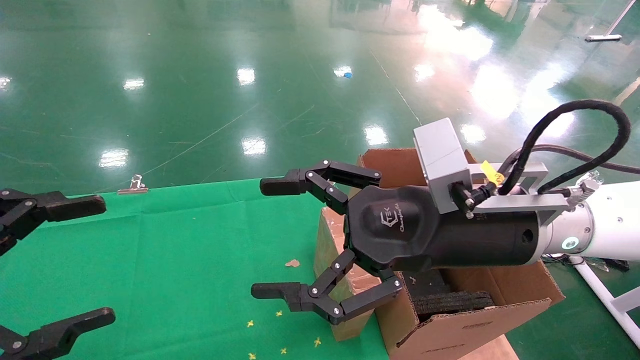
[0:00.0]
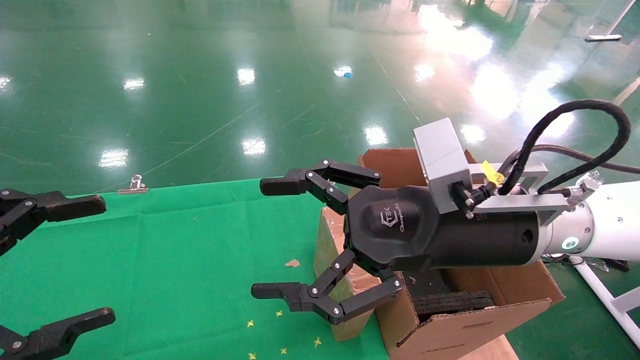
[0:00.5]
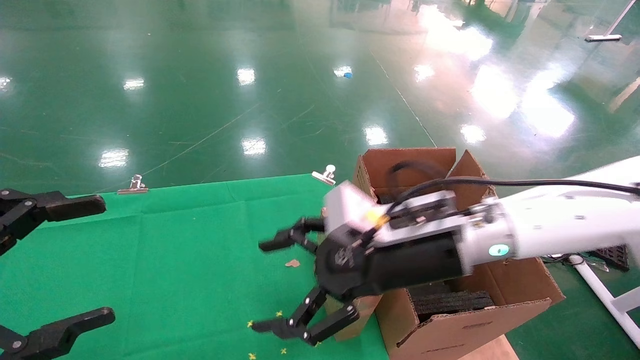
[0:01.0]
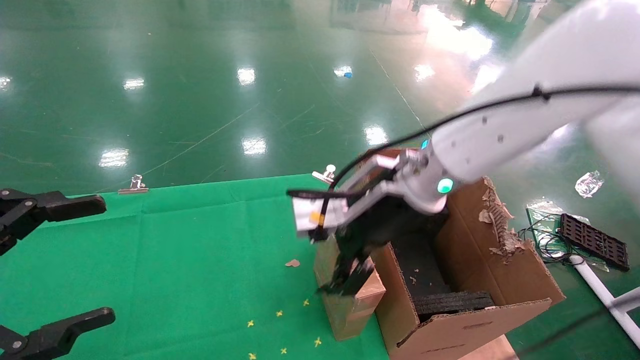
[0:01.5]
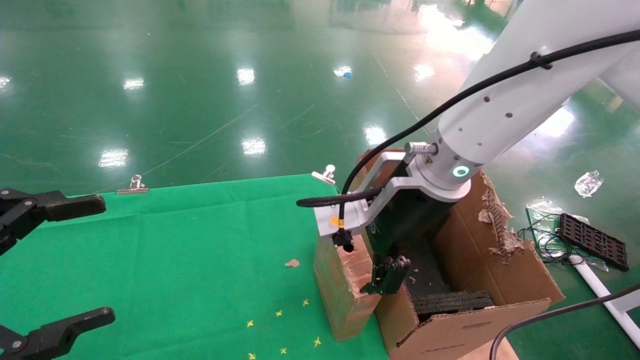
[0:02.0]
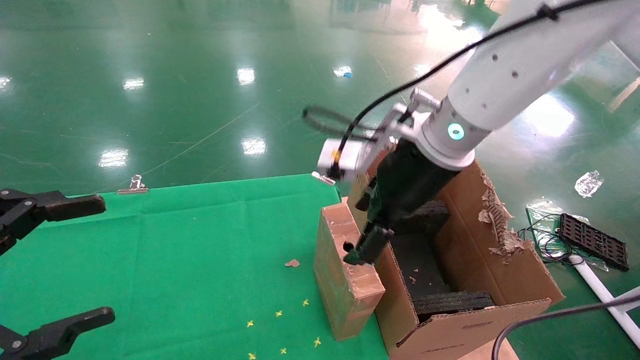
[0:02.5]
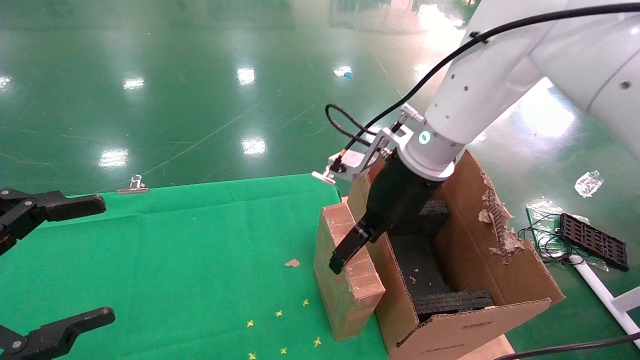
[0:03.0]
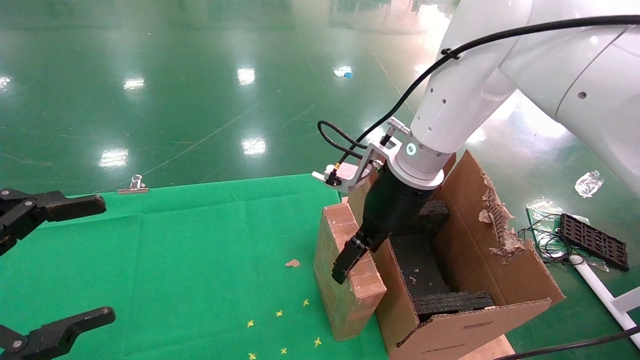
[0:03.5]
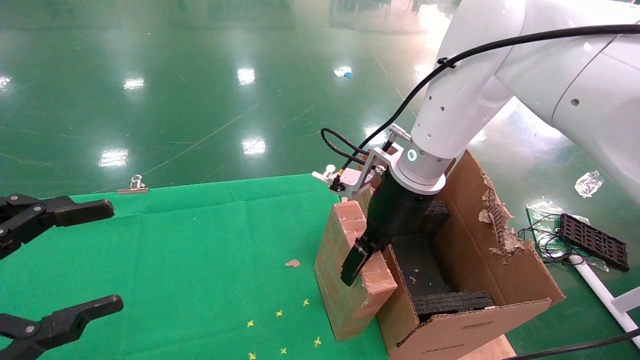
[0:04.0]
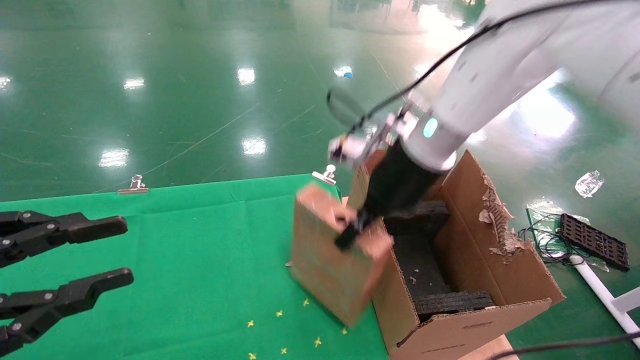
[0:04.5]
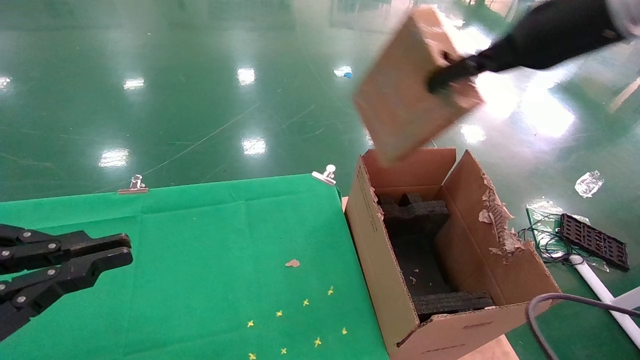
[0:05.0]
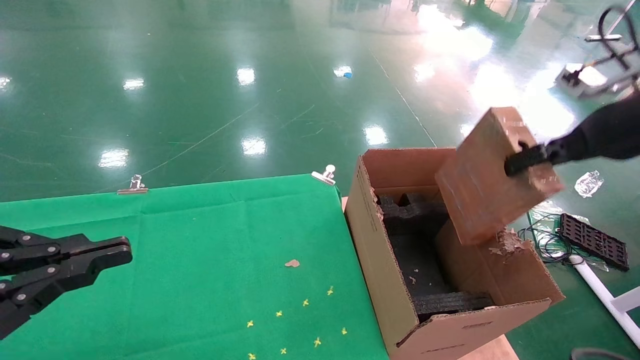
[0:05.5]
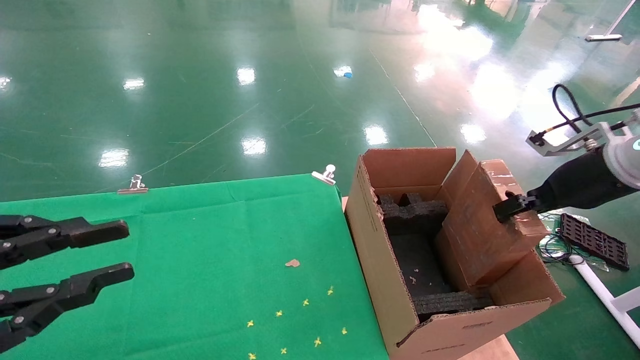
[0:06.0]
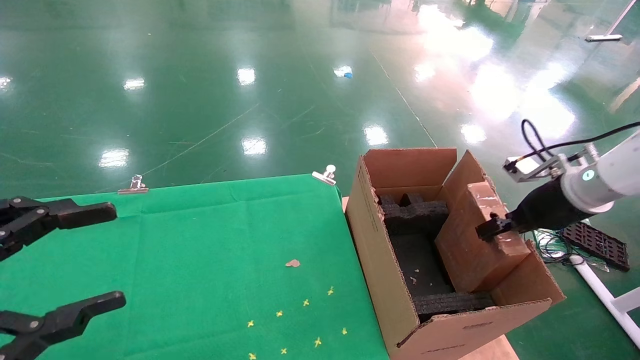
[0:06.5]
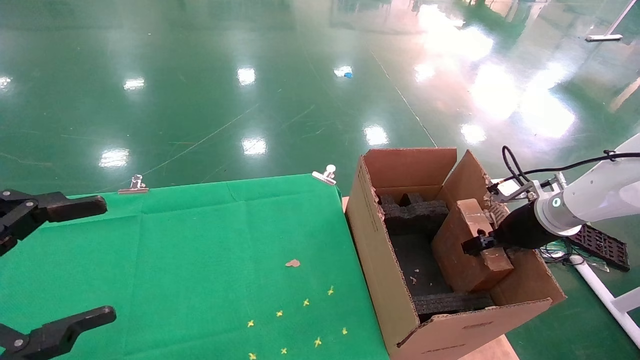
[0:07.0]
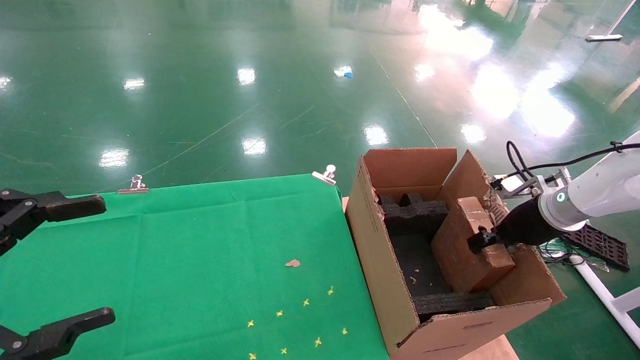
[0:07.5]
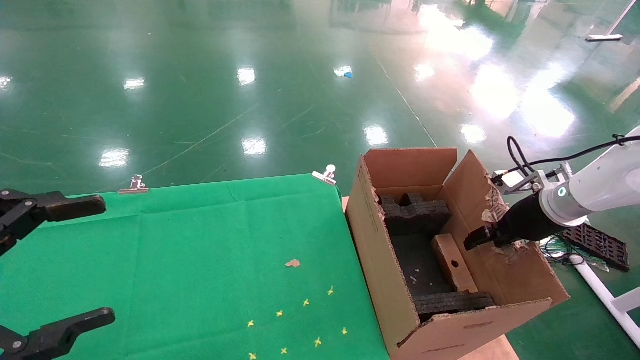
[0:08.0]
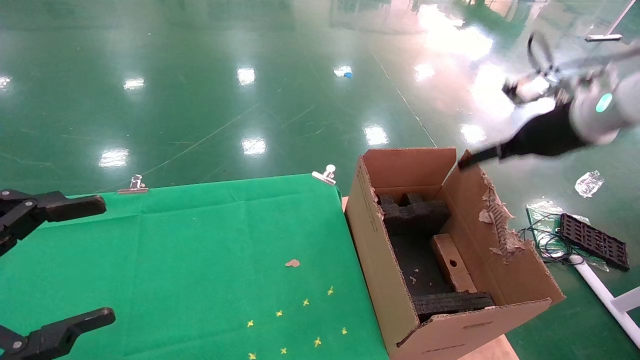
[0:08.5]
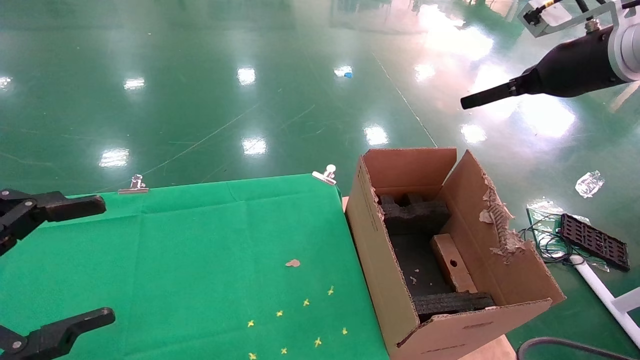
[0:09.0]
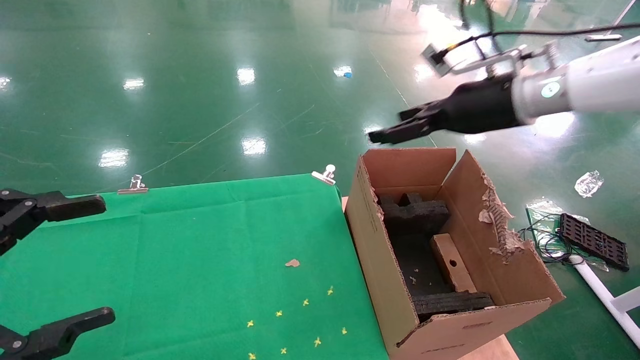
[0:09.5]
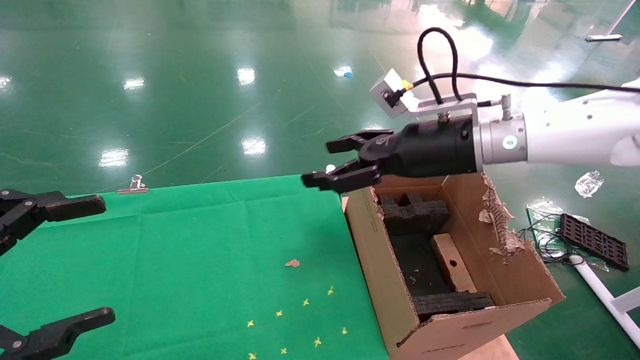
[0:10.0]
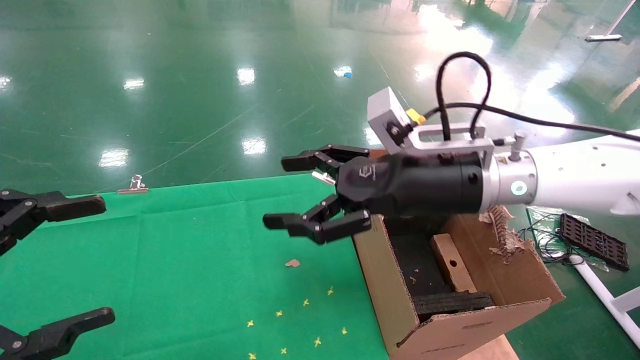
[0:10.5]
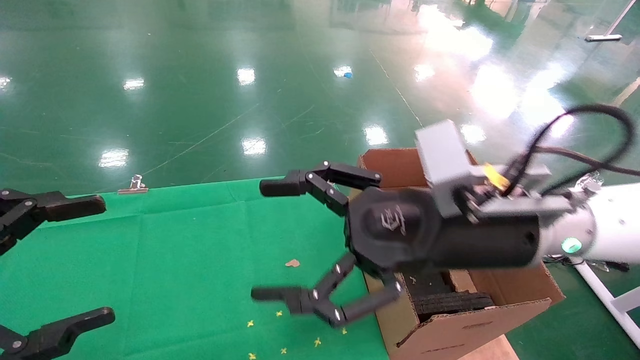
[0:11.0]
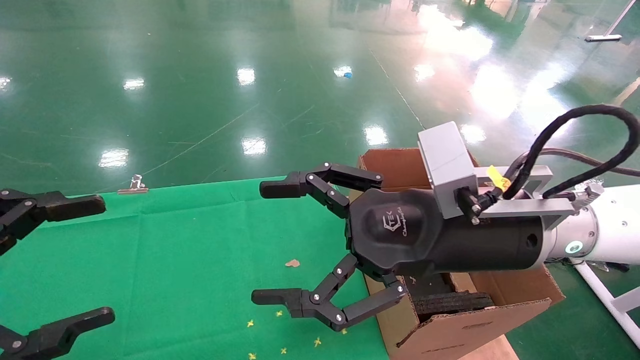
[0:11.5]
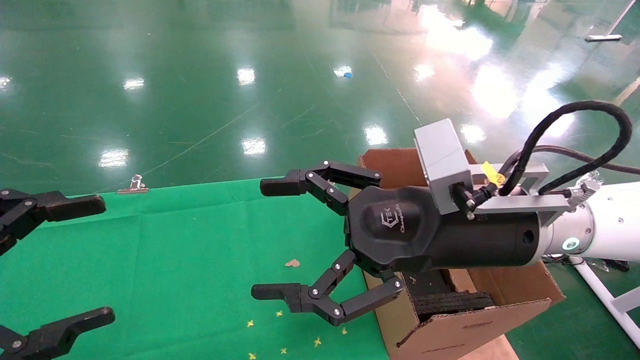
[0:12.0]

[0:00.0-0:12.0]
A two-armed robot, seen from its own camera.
Task of the whole recording: using a robotic arm to pick up a cardboard box and palace it the carton.
Step, 0:01.0 to 0:04.5: Pick up the mouse and the power cord paper box.
Step, 0:05.0 to 0:08.0: Place the mouse and the power cord paper box into the container.
0:00.0 to 0:02.0: The right gripper is displaced forward by some 5 cm.
0:02.0 to 0:04.0: The right gripper shifts approximately 5 cm forward.
0:04.0 to 0:06.0: The left gripper closes. Meanwhile the right gripper moves to the right, about 30 cm, and closes up.
0:06.0 to 0:08.0: The left gripper opens. Meanwhile the right gripper shifts roughly 10 cm downward and forward, and opens.
0:08.0 to 0:10.0: The right gripper shifts approximately 25 cm to the left and upward, and opens.
0:10.0 to 0:12.0: The right gripper travels backward by roughly 10 cm.

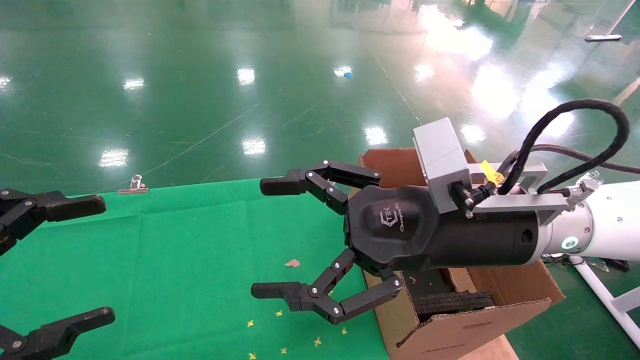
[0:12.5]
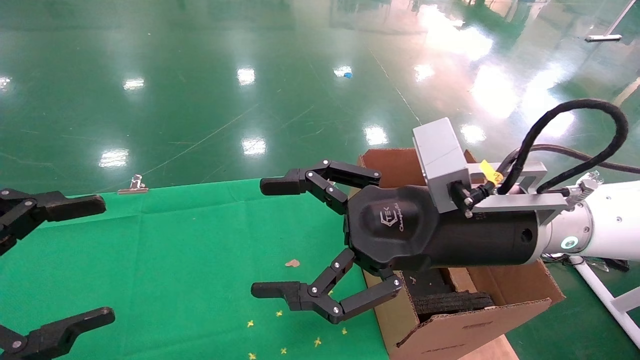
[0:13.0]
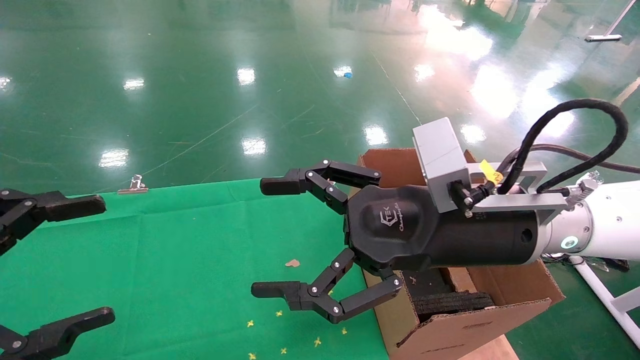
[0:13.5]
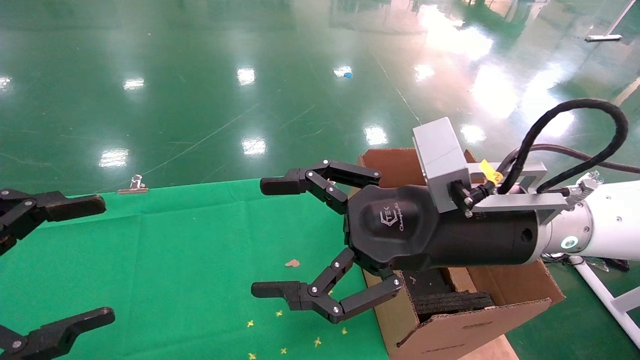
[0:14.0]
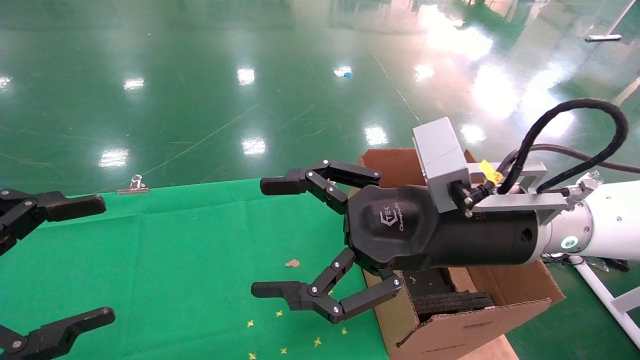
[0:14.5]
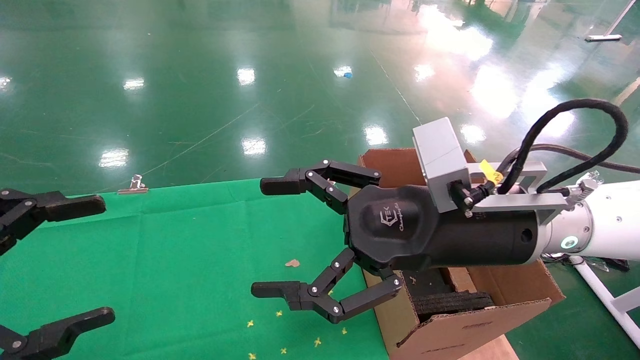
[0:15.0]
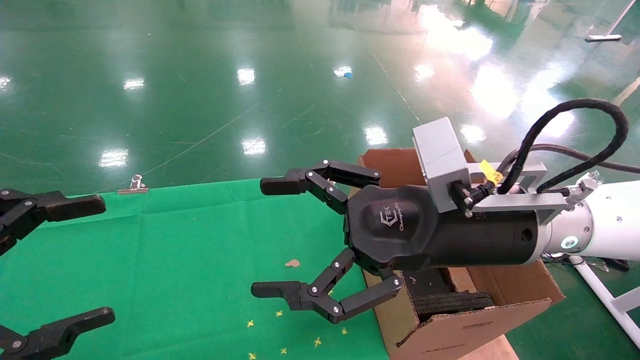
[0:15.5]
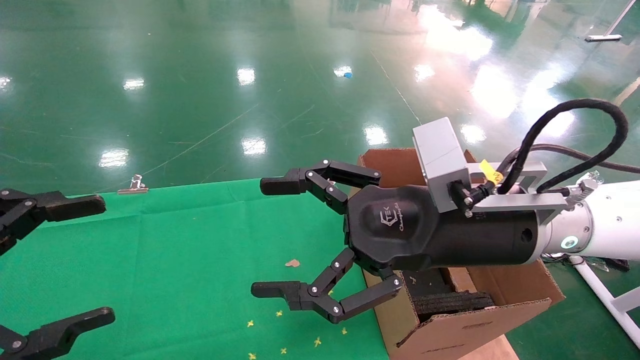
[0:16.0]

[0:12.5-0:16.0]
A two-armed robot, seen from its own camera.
Task of the whole recording: using a robotic arm to pick up a cardboard box and palace it the carton.
0:12.5 to 0:16.0: Neither gripper changes place.
